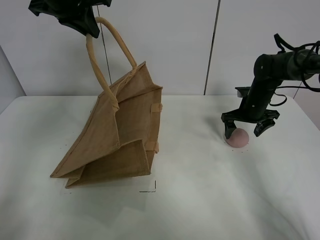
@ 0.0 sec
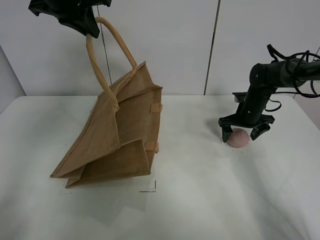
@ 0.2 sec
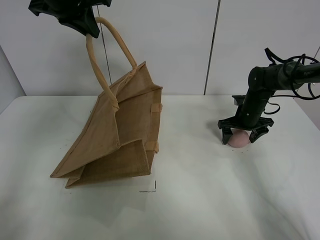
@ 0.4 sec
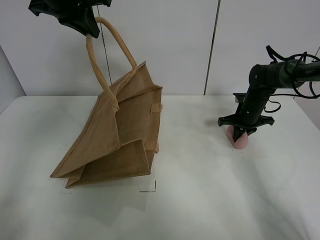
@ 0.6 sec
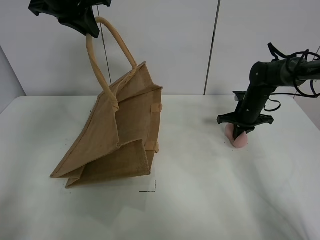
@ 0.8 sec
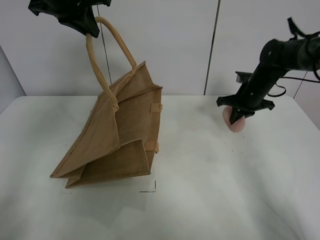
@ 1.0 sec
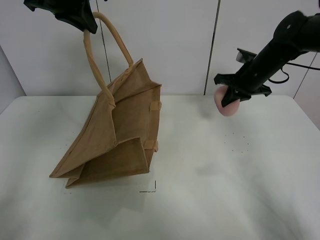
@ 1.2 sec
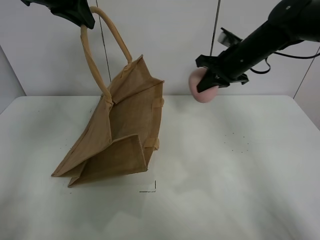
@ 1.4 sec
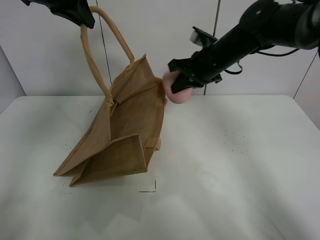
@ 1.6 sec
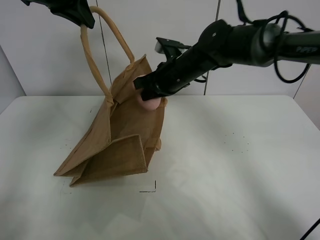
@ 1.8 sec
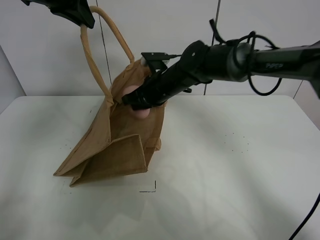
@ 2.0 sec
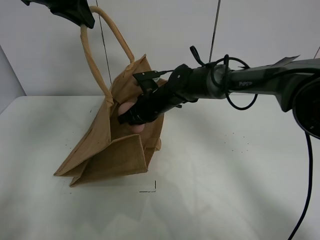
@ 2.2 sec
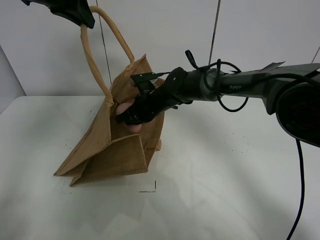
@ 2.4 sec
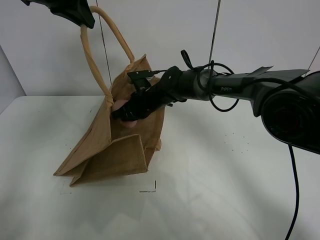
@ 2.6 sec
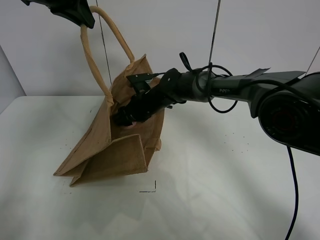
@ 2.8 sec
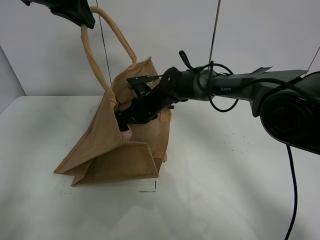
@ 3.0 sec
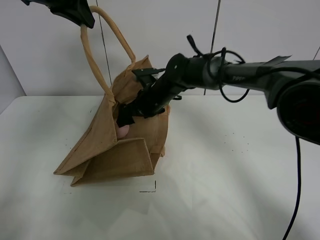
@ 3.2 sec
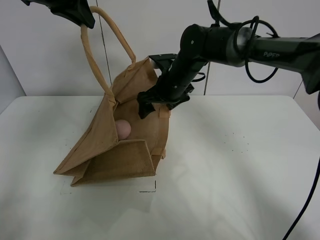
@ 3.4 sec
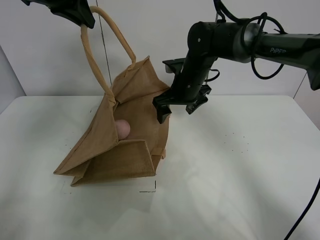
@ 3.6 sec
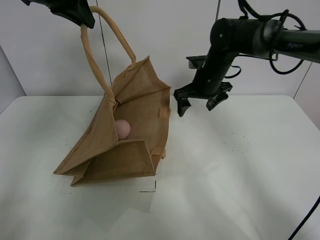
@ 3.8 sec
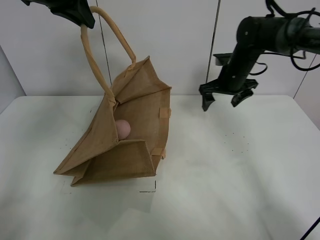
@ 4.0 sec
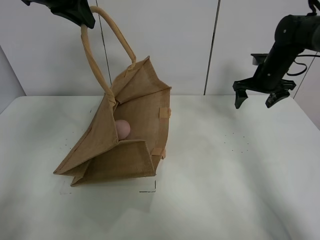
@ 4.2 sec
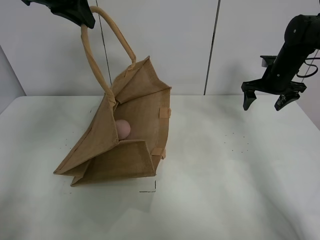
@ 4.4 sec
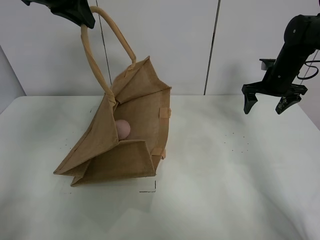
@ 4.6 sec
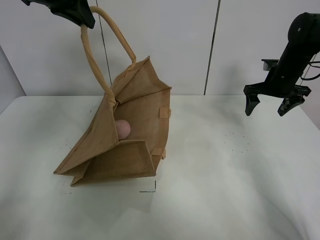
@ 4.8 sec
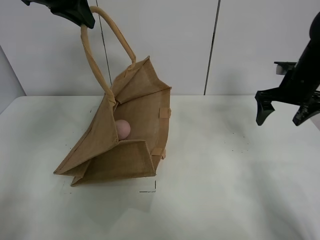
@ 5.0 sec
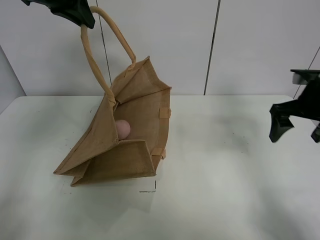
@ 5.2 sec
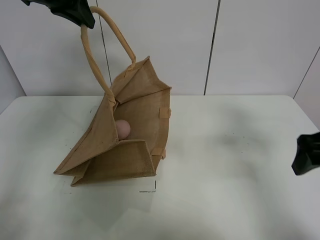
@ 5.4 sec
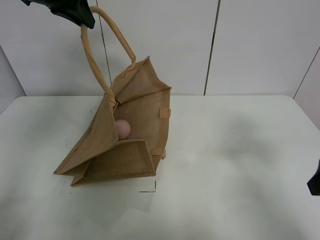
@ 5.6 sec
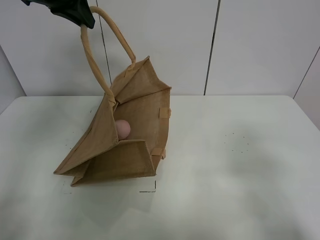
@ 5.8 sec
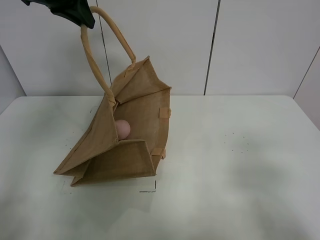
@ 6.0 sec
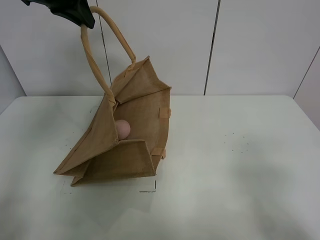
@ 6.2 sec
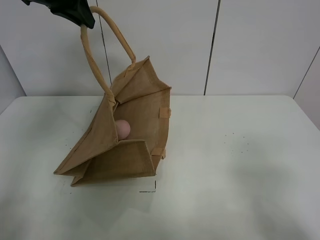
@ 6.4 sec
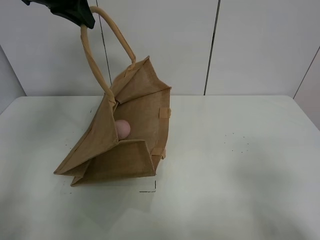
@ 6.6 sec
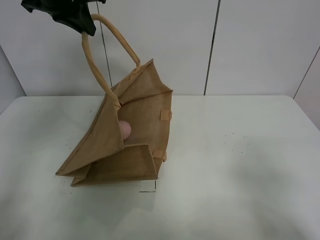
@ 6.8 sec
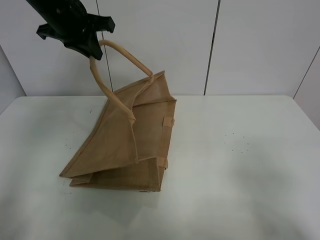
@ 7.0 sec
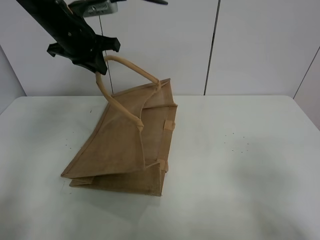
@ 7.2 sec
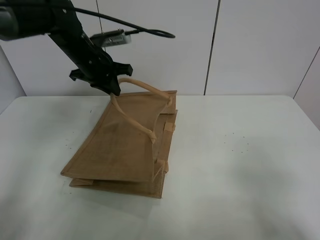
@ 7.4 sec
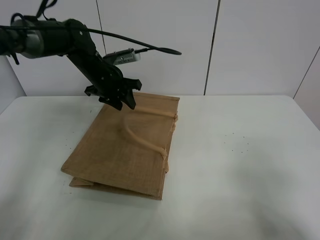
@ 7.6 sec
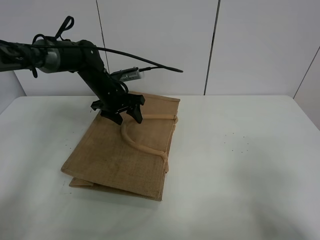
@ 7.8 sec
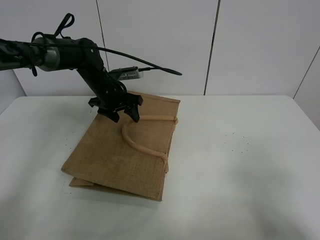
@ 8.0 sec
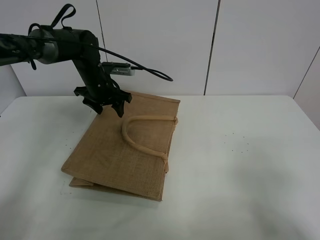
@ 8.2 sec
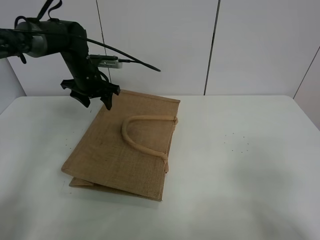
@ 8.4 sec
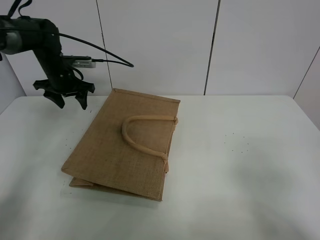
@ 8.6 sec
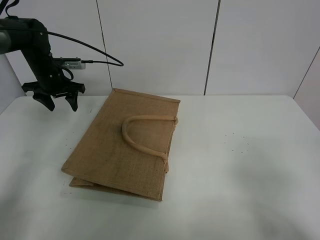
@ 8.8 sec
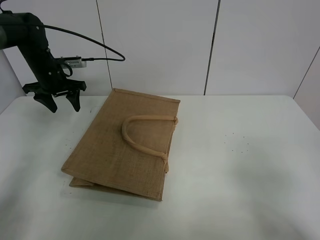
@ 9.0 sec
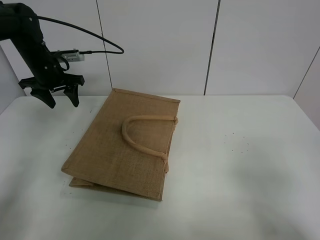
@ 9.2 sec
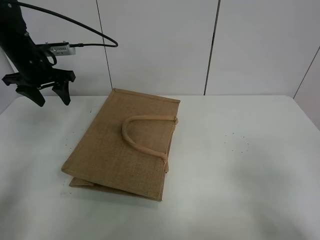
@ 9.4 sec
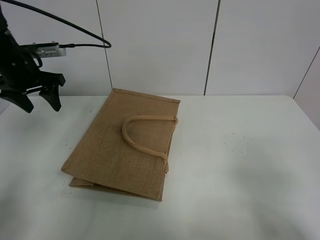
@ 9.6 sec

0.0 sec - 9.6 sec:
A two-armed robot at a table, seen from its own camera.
Task of the whole recording: open the brown linen bag and put the peach in the bag.
Step, 0.6 sec - 3.6 sec: Place the peach in the handbag with right gripper.
Step, 3.8 sec - 8.4 sec: Put down the handbag with left grippe.
0.0 sec - 1.6 sec: The right gripper goes some 20 cm to the left and upward, and closes up.
1.6 sec - 3.2 sec: The right gripper heads to the left and downward, covering roughly 15 cm, and opens.
3.2 sec - 4.8 sec: The right gripper travels to the right by about 30 cm.
4.8 sec - 6.4 sec: The right gripper heads backward, covering roughly 40 cm.
6.4 sec - 8.0 sec: The left gripper heads downward, covering some 25 cm, and opens.
8.0 sec - 9.6 sec: The left gripper shifts roughly 20 cm to the left, upward and backward.

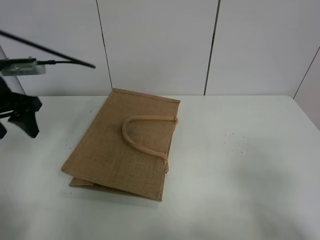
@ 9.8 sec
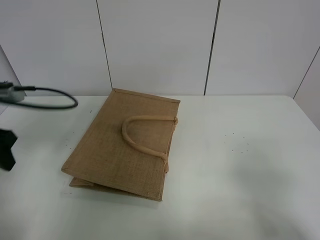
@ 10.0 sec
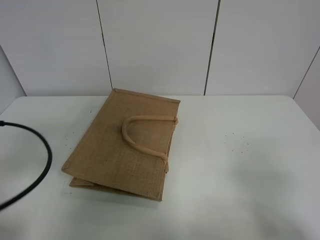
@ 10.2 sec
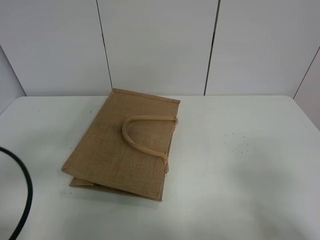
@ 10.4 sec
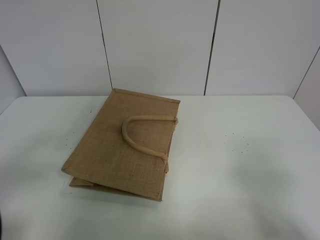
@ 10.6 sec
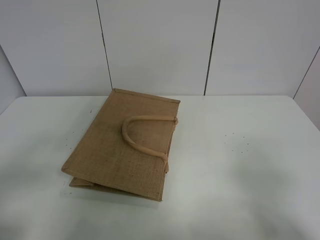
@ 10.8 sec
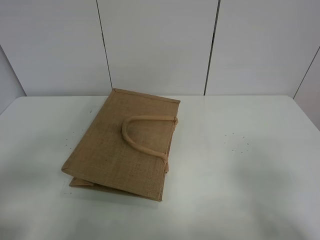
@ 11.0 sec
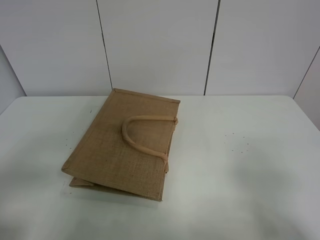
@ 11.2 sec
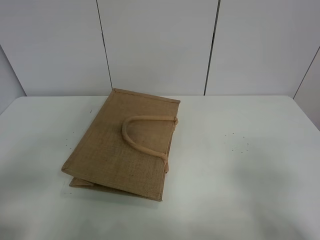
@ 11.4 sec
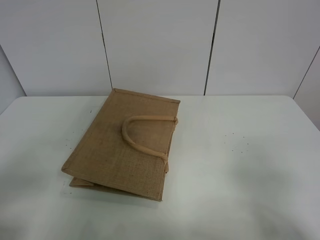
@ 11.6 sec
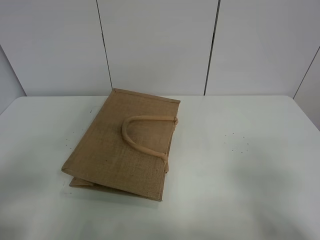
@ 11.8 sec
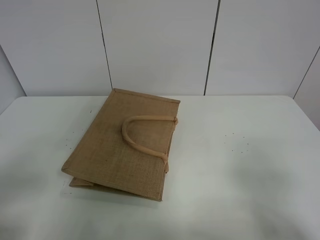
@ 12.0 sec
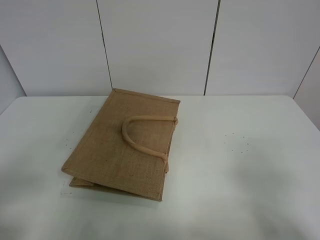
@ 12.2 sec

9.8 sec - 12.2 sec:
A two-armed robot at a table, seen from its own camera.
Task of the whole recording: open the brown linen bag and put the peach in the bag.
9.8 sec - 11.0 sec: The left gripper is displaced backward by roughly 25 cm.
